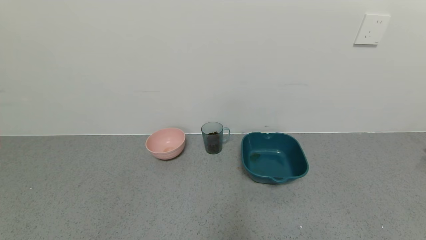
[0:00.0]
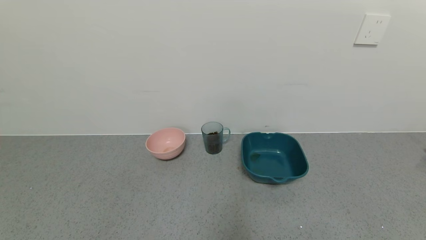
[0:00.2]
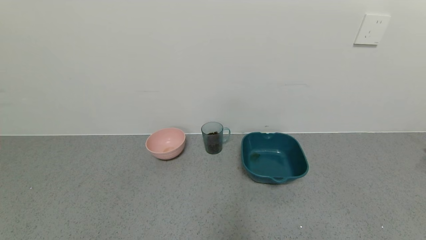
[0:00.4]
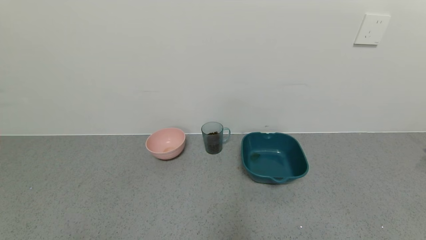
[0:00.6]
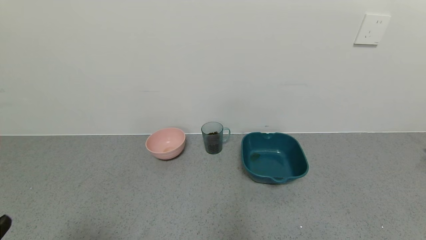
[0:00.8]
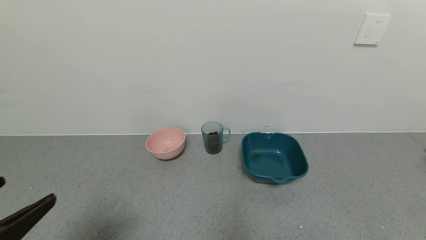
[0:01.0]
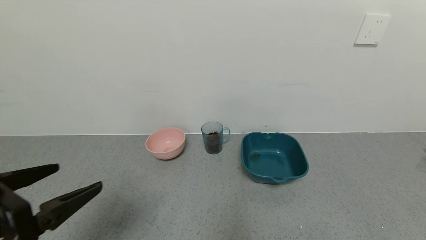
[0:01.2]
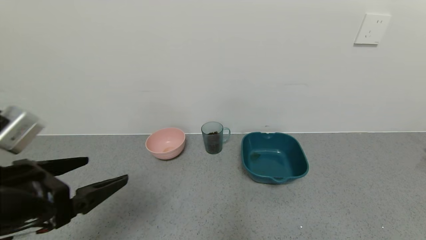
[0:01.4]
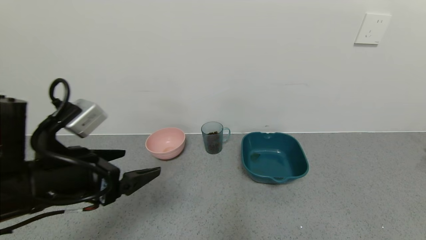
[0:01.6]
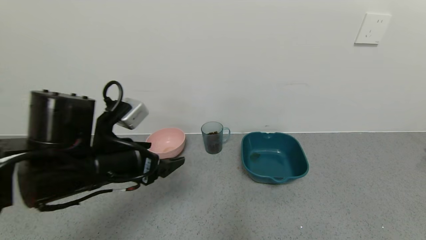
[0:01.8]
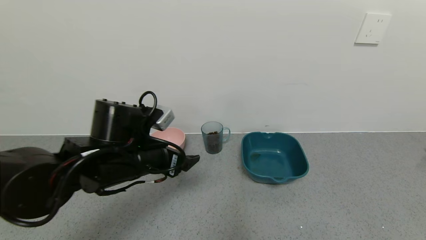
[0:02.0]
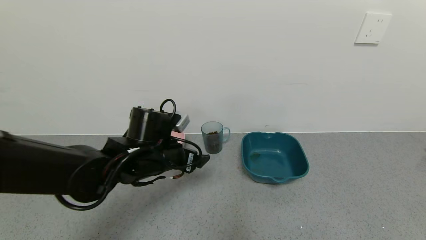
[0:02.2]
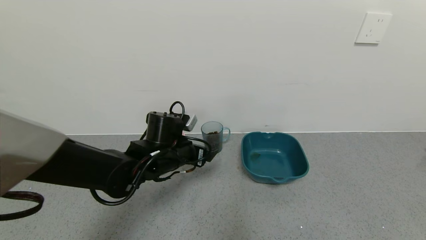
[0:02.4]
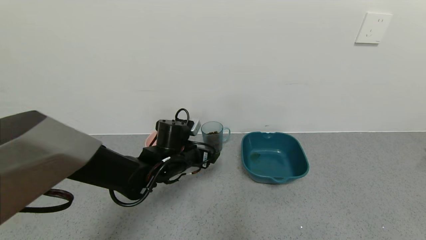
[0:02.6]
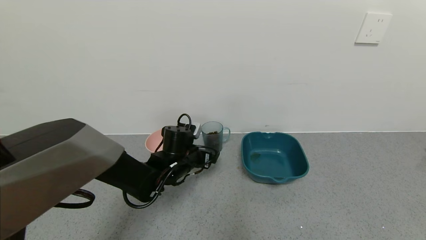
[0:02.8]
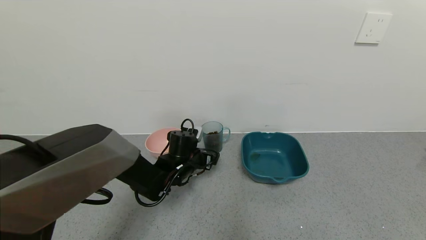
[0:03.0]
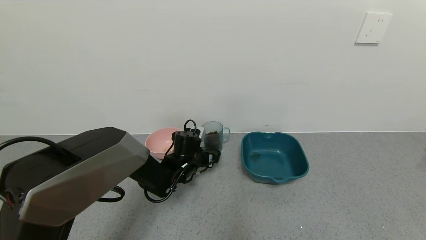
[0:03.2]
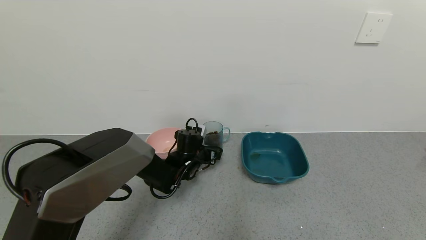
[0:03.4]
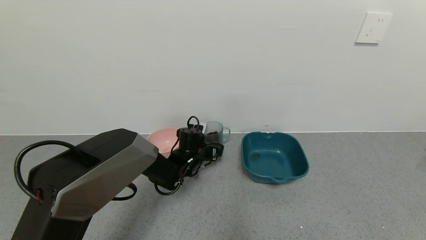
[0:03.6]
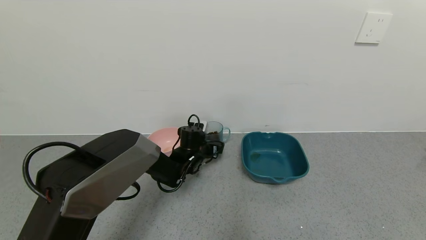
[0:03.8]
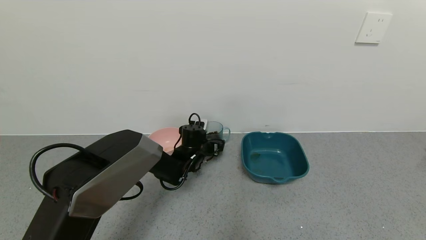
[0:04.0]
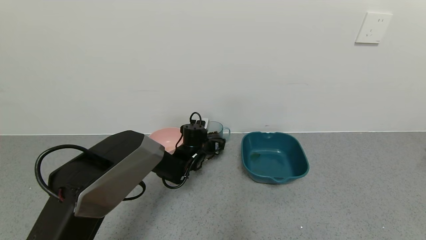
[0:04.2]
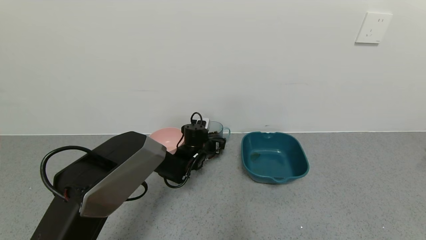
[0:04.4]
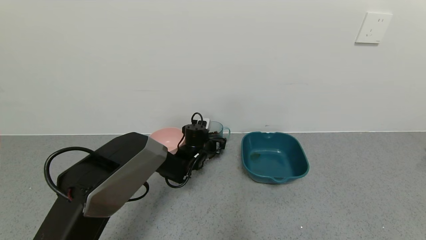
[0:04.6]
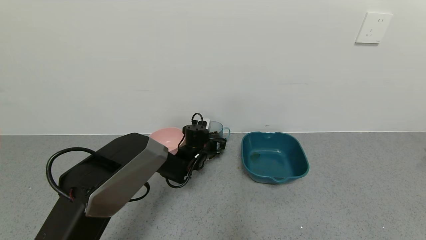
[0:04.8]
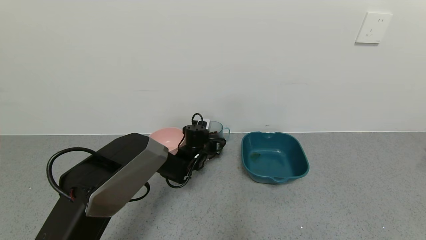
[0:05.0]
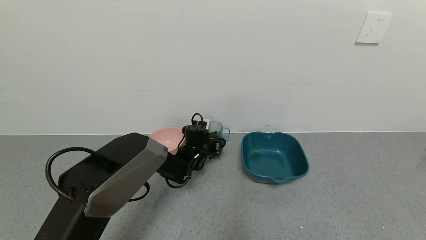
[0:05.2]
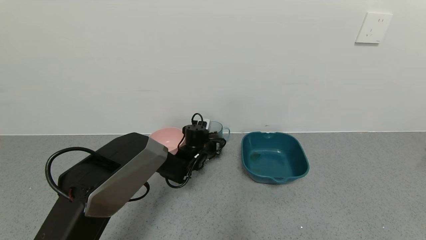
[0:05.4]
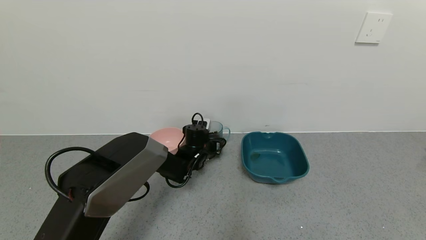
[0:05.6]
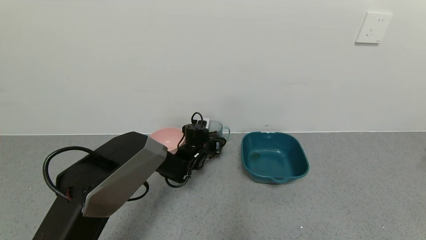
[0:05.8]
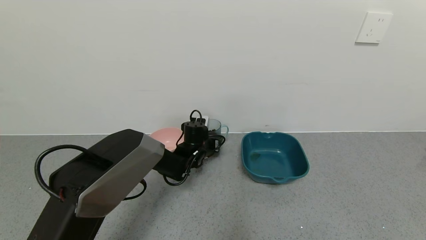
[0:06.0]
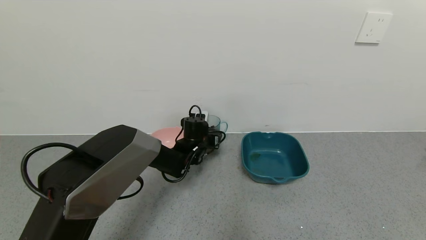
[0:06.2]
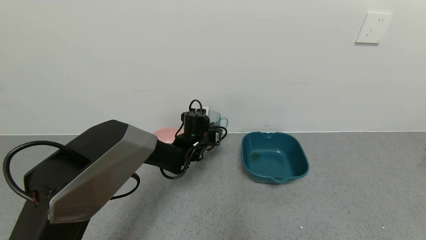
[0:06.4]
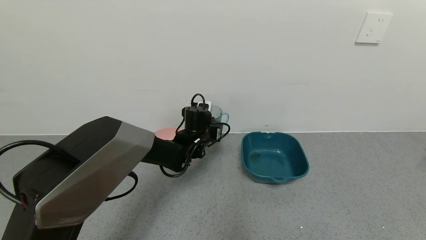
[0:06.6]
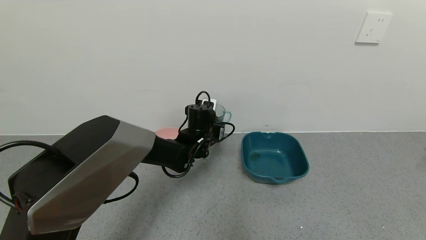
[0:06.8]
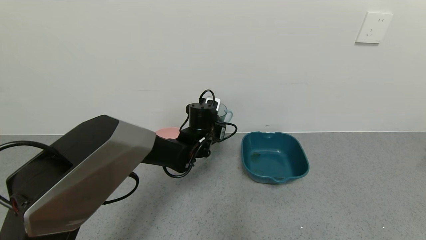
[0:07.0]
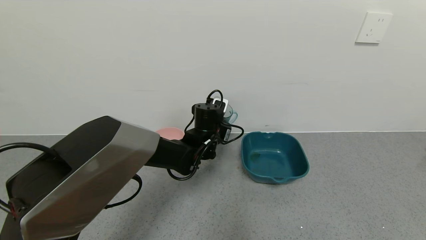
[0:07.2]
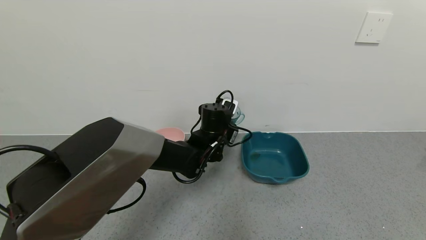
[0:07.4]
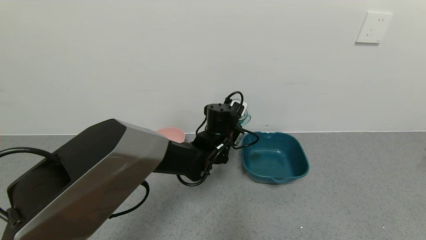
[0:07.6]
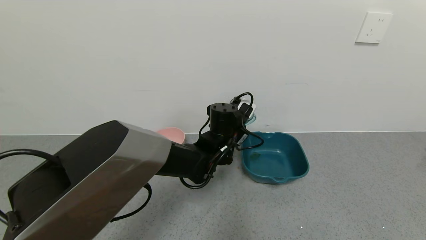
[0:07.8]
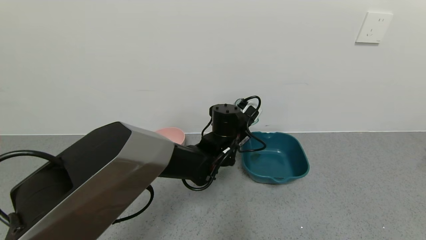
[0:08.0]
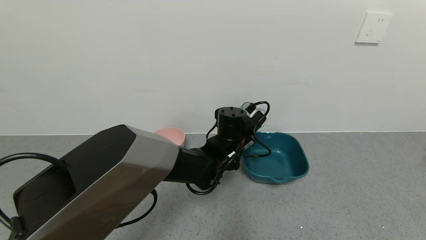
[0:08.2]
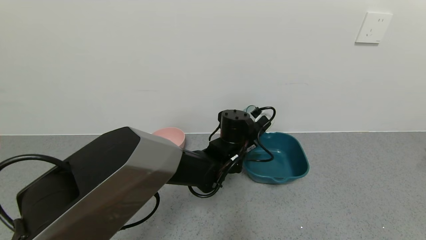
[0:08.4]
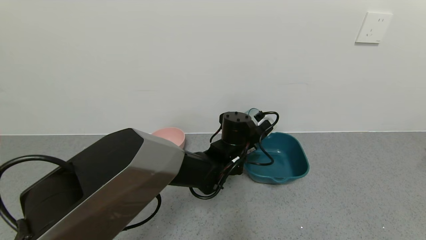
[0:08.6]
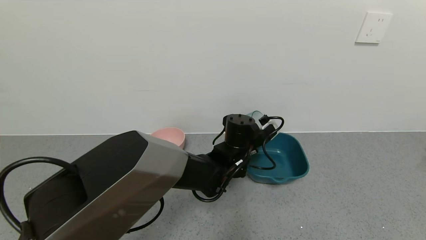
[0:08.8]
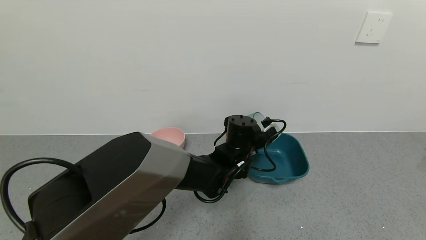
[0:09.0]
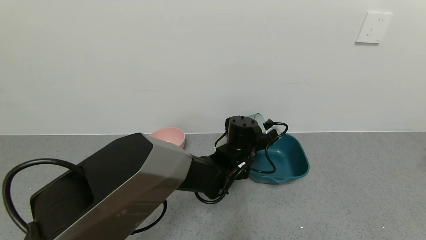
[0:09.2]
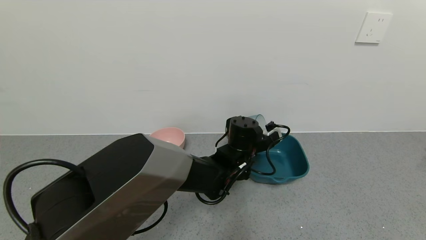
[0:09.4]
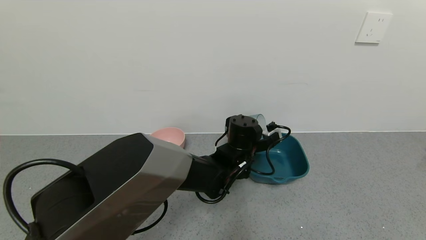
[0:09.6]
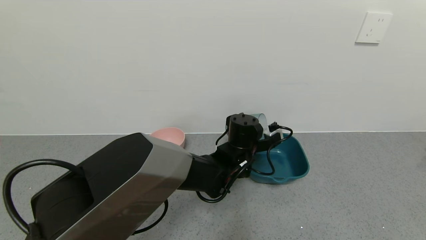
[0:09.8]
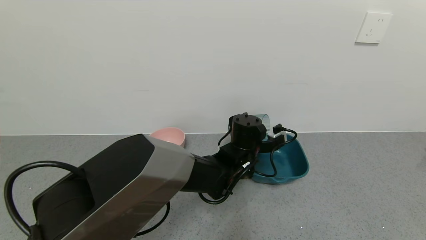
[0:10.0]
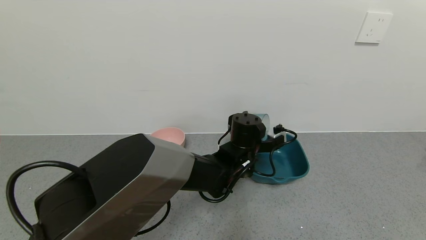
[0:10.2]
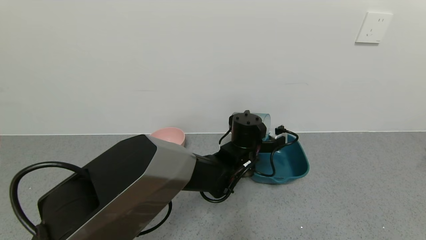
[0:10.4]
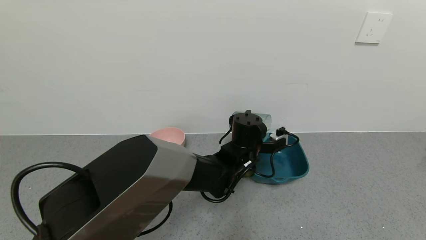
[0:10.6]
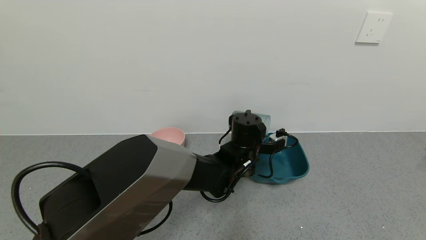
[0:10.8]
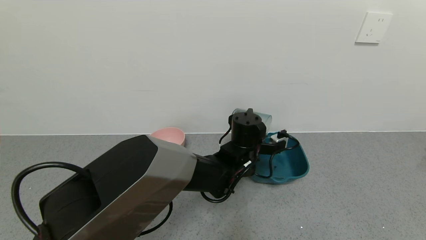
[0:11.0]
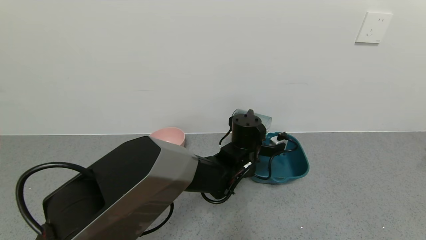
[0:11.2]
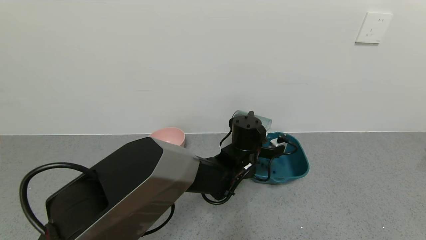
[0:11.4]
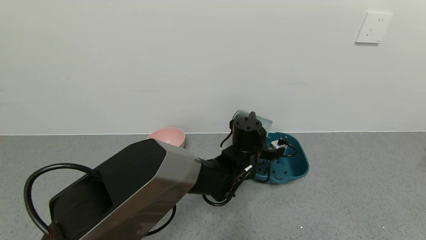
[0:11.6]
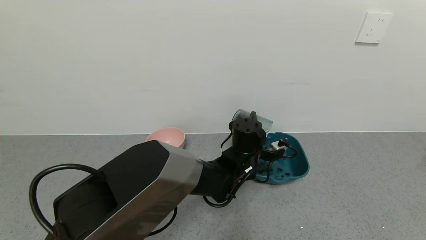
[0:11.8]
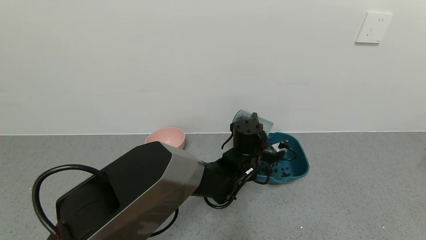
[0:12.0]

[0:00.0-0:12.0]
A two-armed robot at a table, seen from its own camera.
Task of the whole recording: use a gripper to pick up the cup and pour the solid into a bowl or tray.
Step, 0:00.0 to 0:05.8: Grasp the glass of coffee beans with the left gripper.
0:00.0 to 0:01.6: The left gripper shifts approximately 25 cm forward and upward.
0:01.6 to 0:03.0: The left gripper is displaced forward, downward and to the right by some 30 cm.
0:03.0 to 0:04.4: The left gripper shifts approximately 5 cm forward.
0:04.4 to 0:06.0: The left gripper closes its fingers.
0:06.0 to 0:07.6: The left gripper travels upward, to the right and backward by roughly 15 cm.
0:07.6 to 0:09.0: The left gripper moves roughly 5 cm.

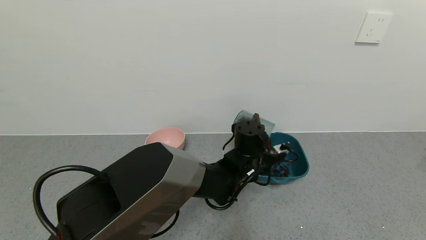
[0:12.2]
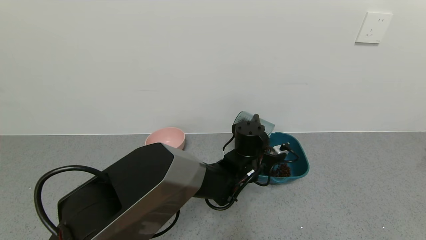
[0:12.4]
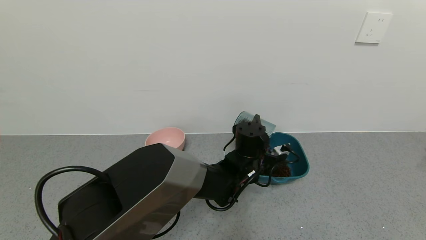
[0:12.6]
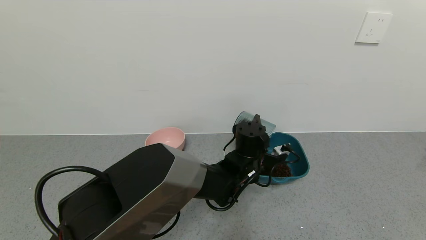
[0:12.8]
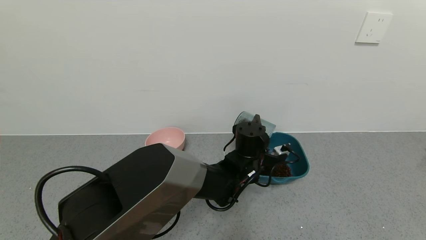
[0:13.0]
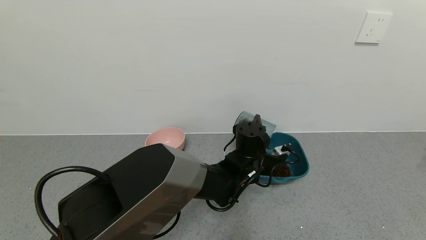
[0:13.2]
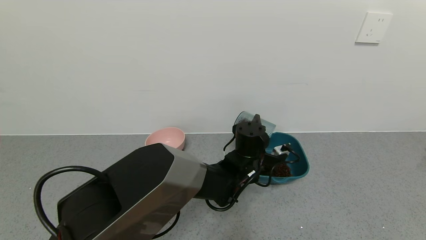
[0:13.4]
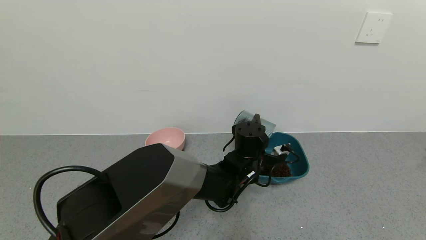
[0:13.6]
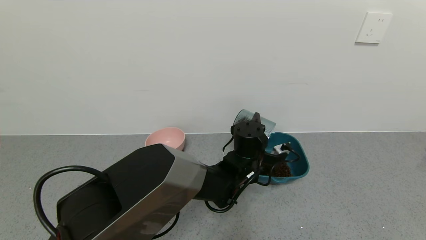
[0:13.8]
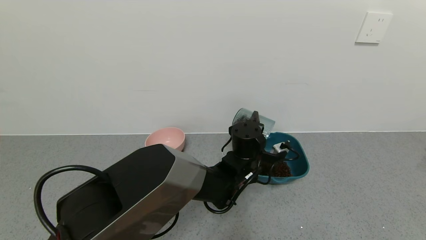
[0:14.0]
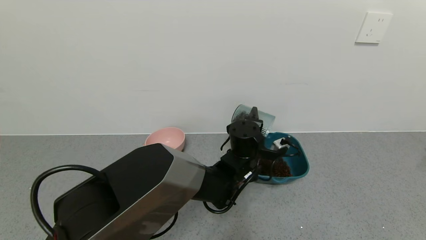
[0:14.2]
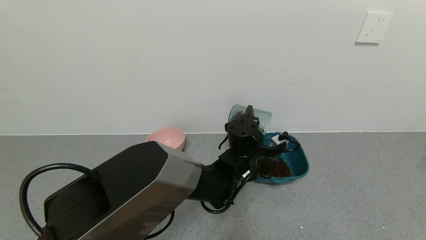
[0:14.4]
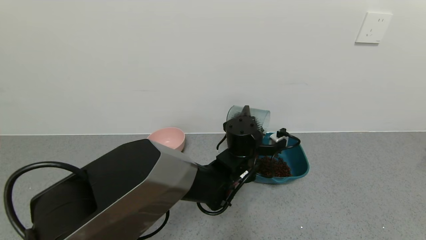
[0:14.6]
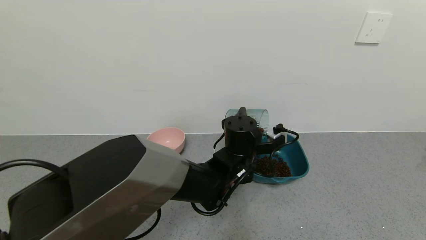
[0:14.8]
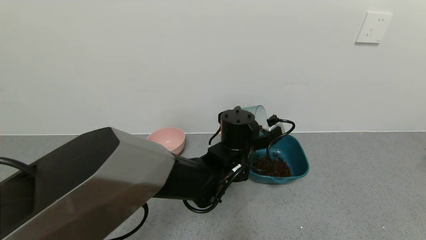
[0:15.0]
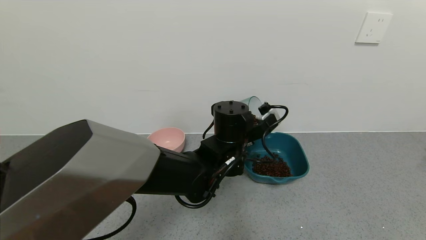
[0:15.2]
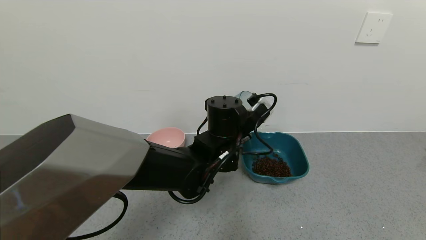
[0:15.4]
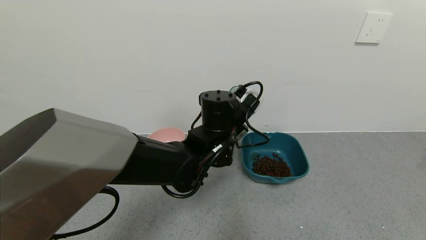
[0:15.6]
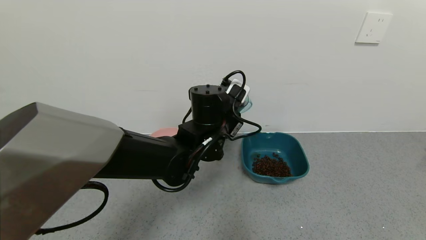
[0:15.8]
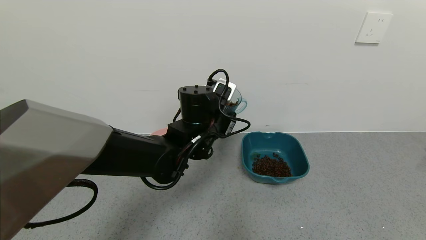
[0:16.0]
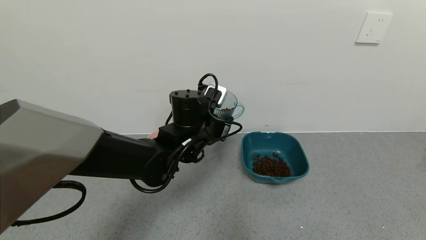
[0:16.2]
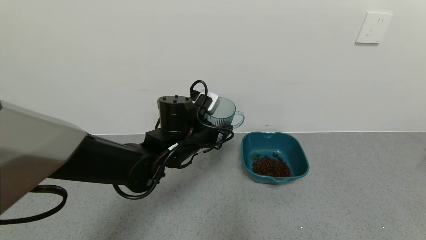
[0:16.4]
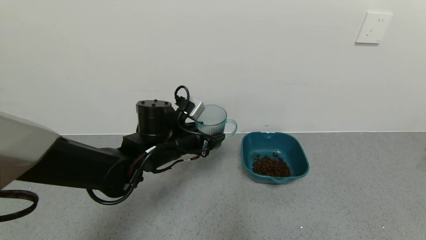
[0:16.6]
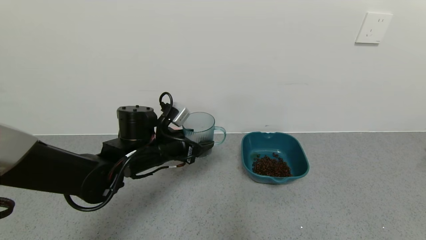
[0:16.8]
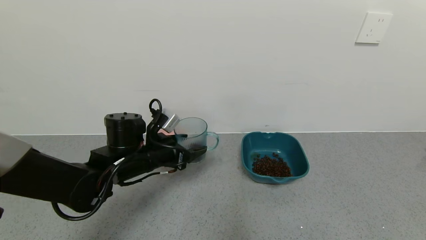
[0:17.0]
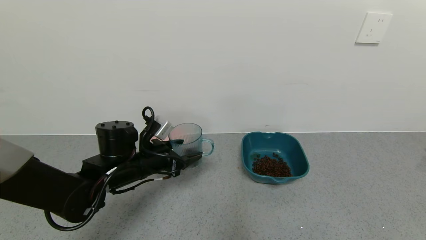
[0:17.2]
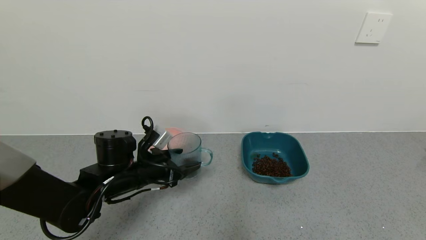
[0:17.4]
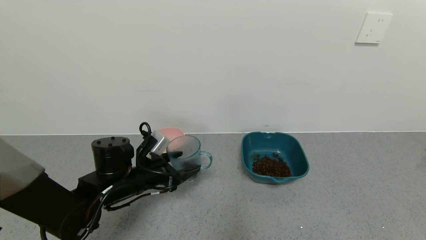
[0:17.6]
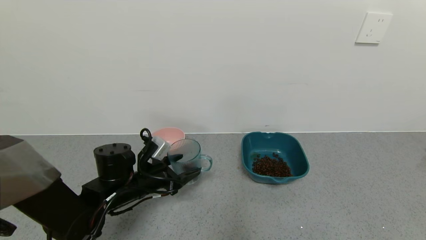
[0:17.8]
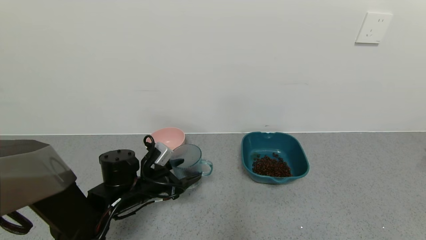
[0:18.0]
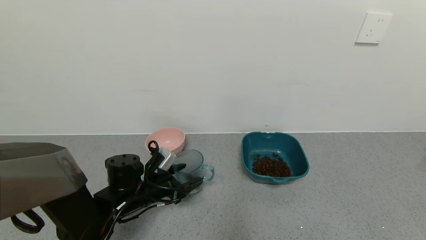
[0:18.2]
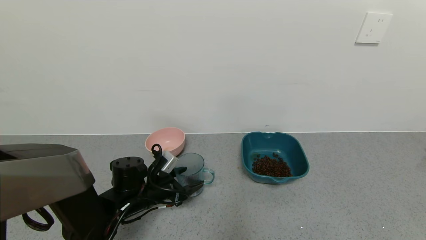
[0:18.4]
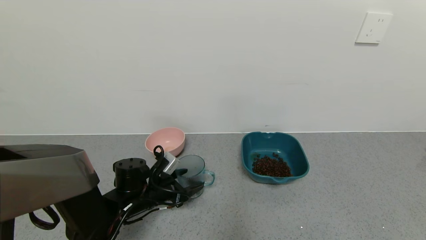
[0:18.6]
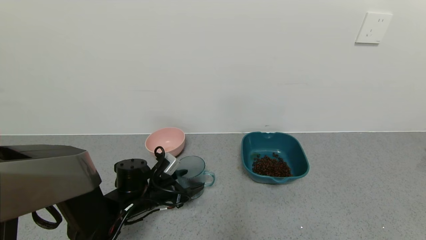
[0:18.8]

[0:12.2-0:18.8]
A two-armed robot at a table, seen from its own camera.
Task of the whole recording: use a gripper to pick up the cup and pour the solid into a bowl or tray.
Step, 0:12.2 to 0:14.4: Pour the coffee beans into the pink bowl with the left gripper.
0:12.2 to 0:13.8: Both grippers stay put.
0:13.8 to 0:15.4: The left gripper shifts about 10 cm upward and to the left.
0:15.4 to 0:17.2: The left gripper shifts about 20 cm to the left.
0:17.2 to 0:18.8: The left gripper heads downward, covering approximately 10 cm.
